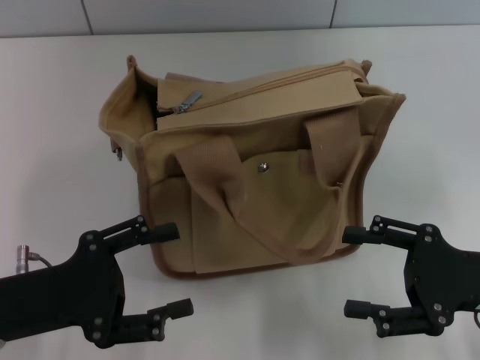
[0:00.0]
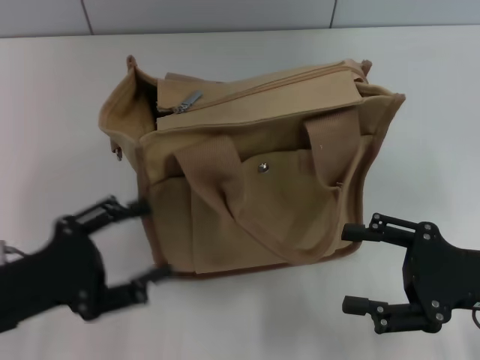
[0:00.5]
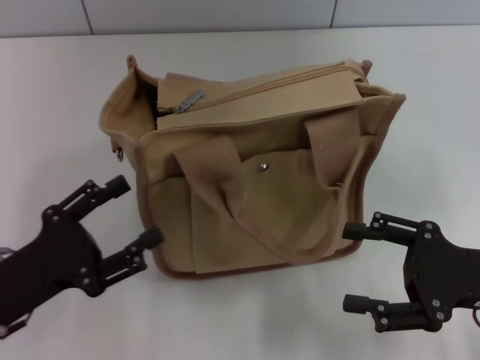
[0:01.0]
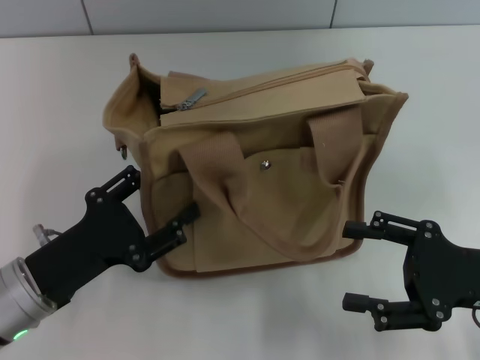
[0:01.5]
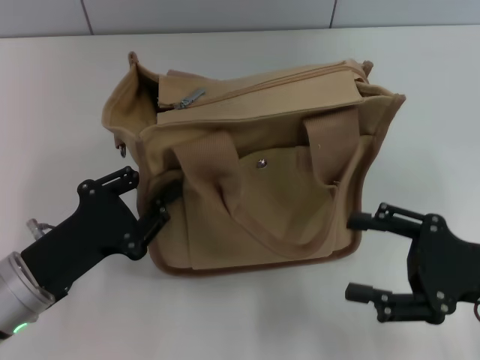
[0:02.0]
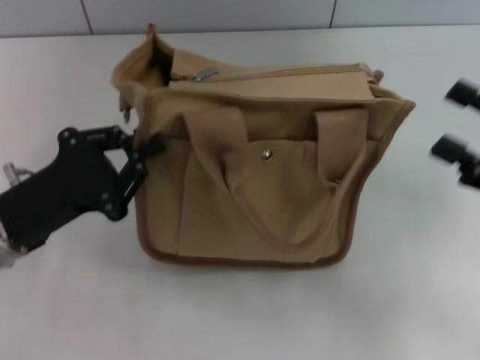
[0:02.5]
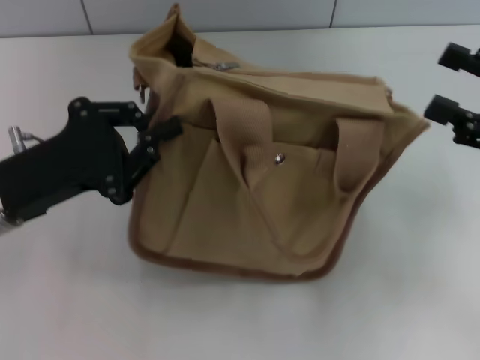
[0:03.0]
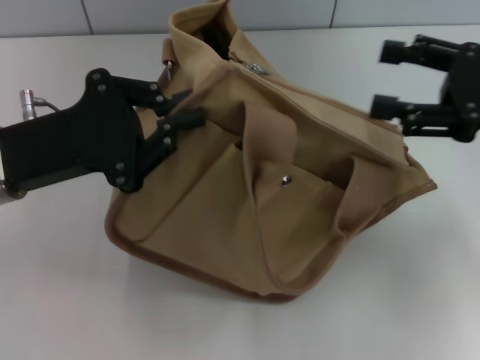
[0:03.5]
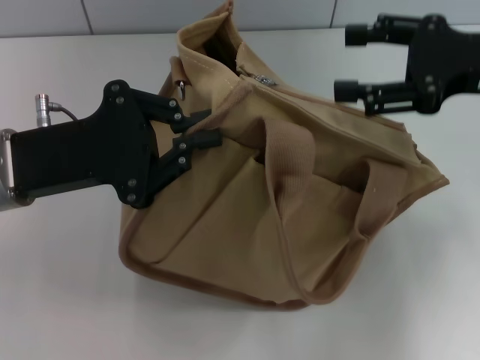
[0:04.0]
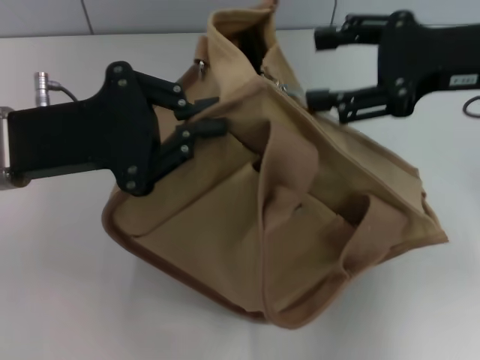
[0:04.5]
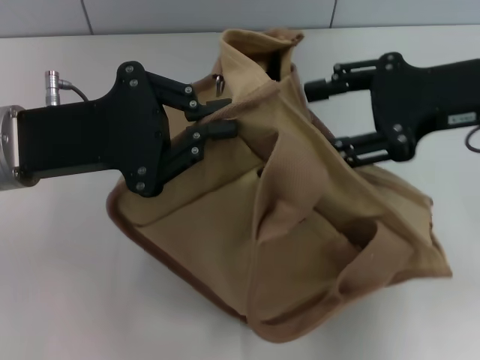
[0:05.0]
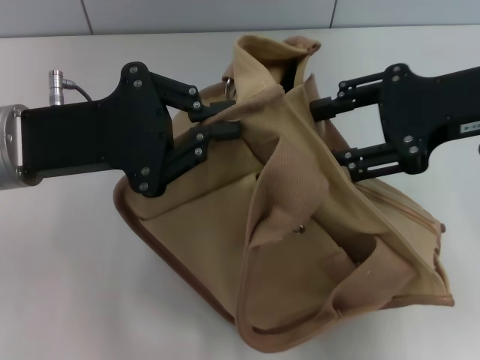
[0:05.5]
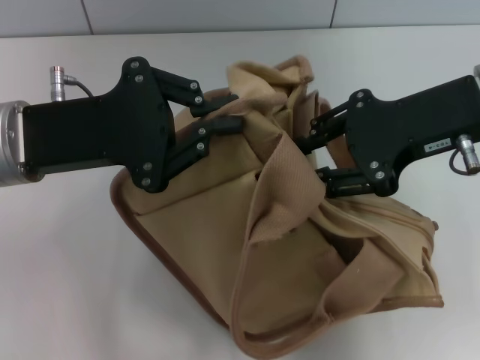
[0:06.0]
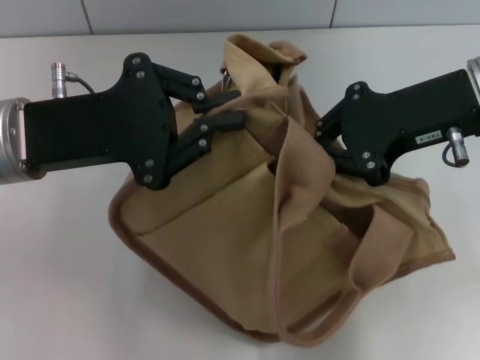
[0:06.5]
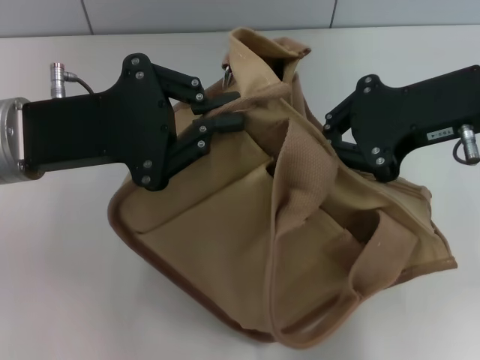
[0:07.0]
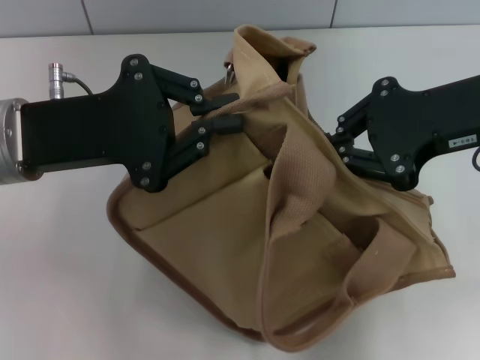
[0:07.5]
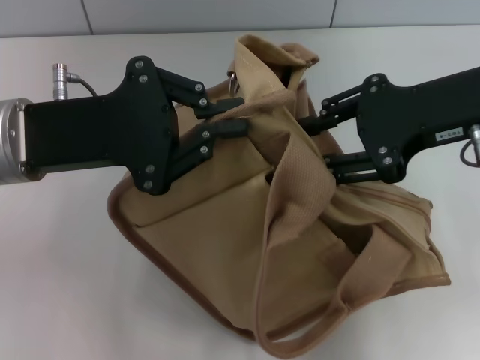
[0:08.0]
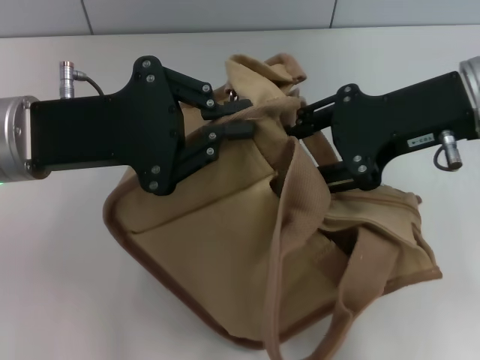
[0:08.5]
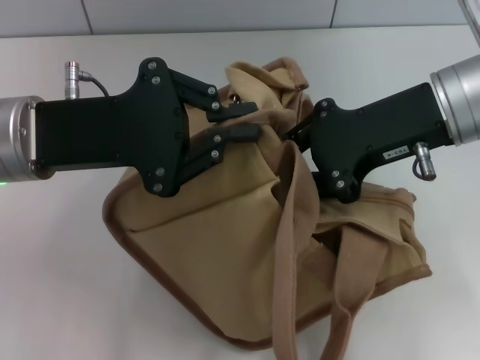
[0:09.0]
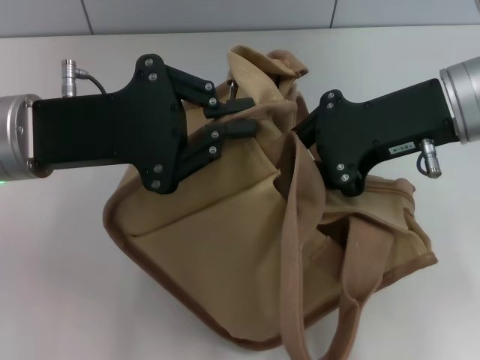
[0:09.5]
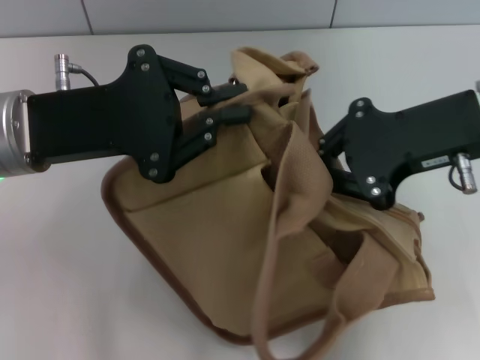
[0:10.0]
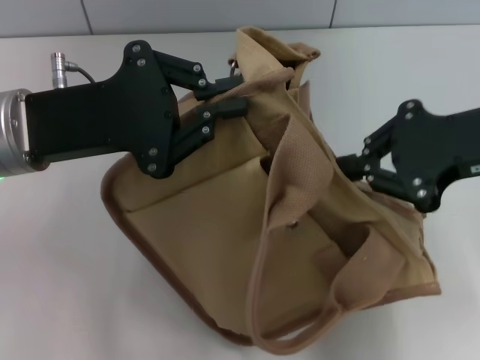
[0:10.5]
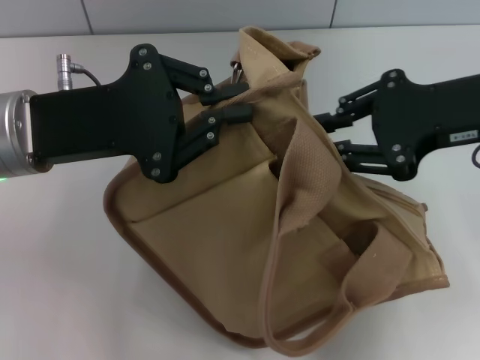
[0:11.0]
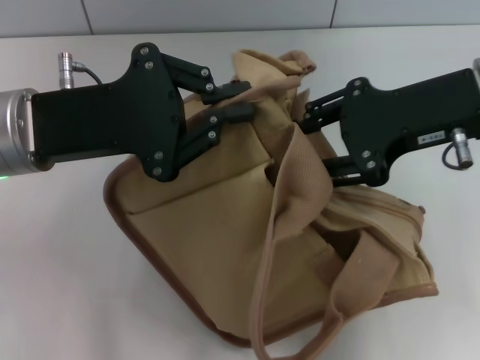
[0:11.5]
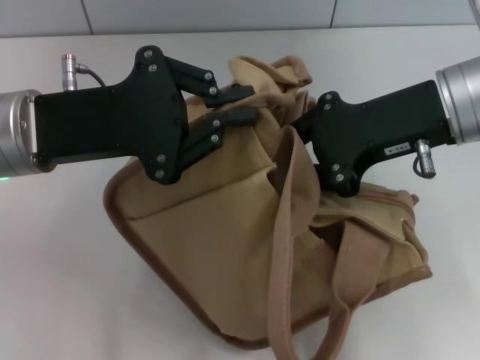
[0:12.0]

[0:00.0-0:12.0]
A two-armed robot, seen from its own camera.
0:00.0 to 0:02.0: The left gripper closes.
0:02.0 to 0:04.0: Both grippers travel together upward and forward, some 15 cm. The left gripper closes.
0:04.0 to 0:06.0: The right gripper is displaced to the left by approximately 5 cm.
0:06.0 to 0:08.0: The right gripper closes.
0:10.0 to 0:12.0: The right gripper opens up.

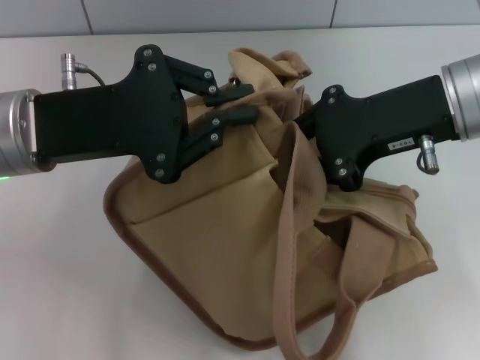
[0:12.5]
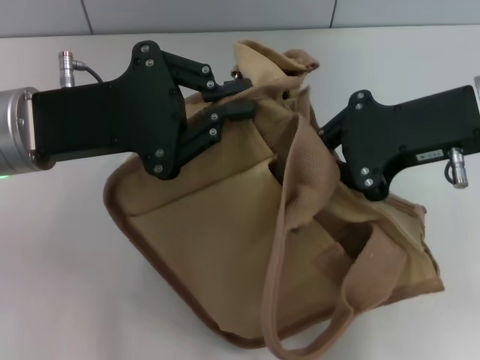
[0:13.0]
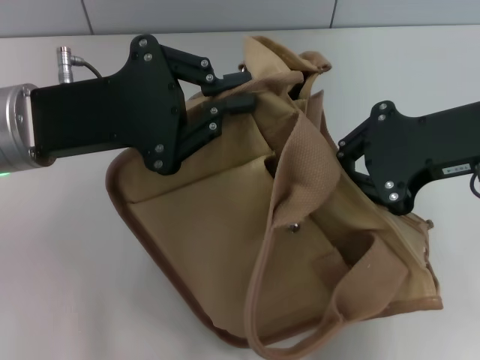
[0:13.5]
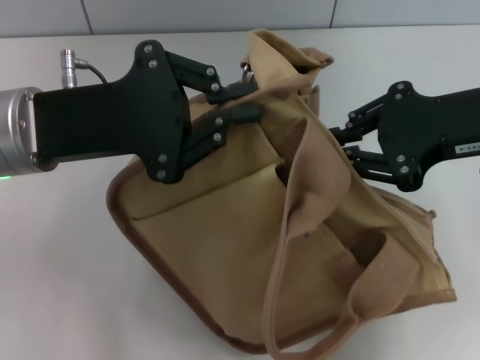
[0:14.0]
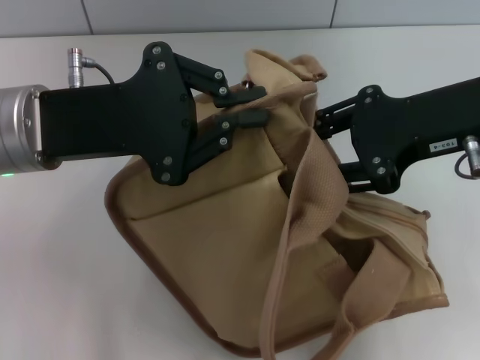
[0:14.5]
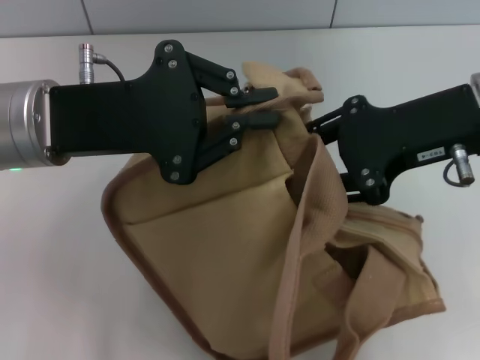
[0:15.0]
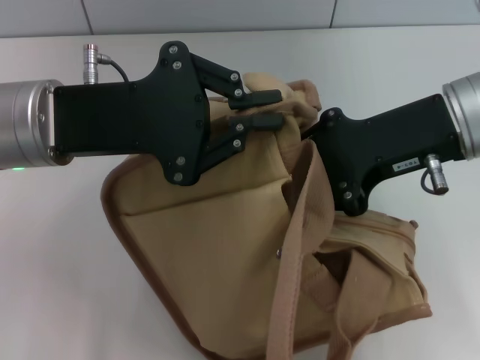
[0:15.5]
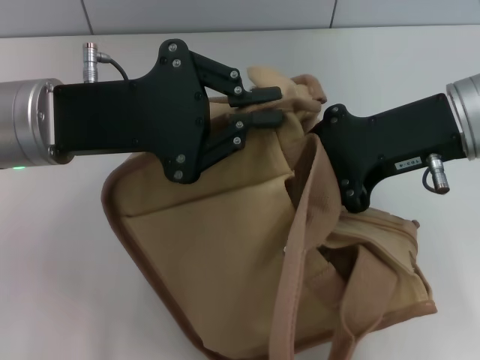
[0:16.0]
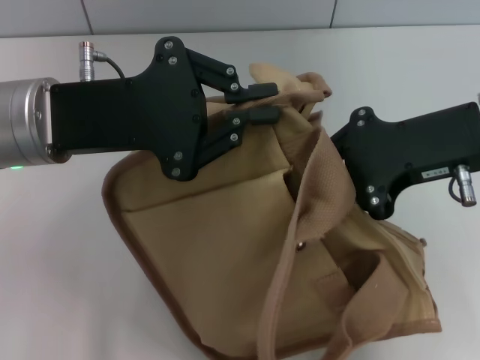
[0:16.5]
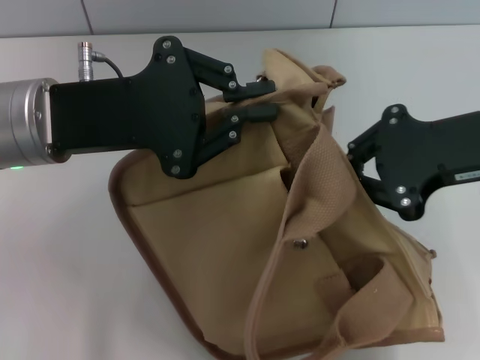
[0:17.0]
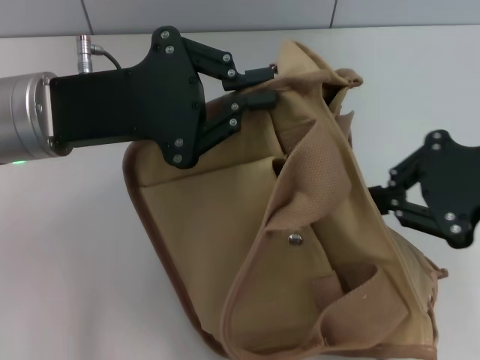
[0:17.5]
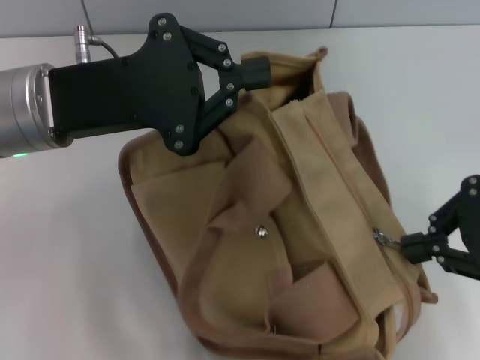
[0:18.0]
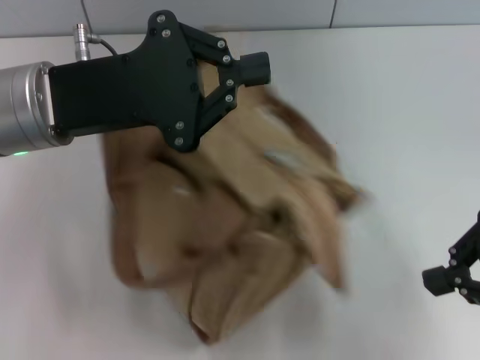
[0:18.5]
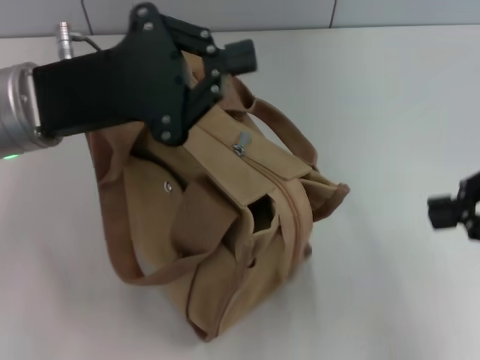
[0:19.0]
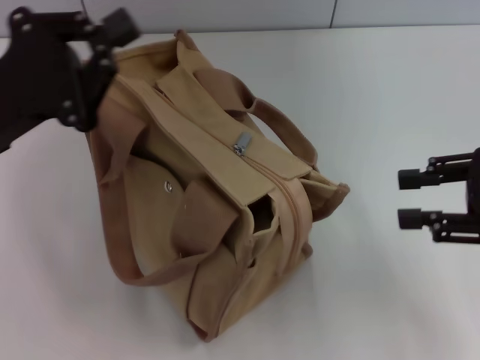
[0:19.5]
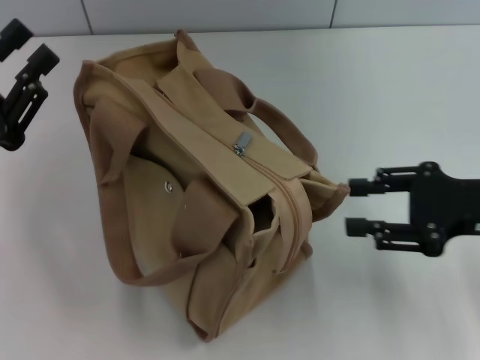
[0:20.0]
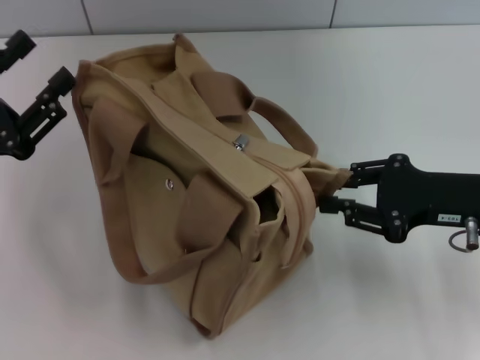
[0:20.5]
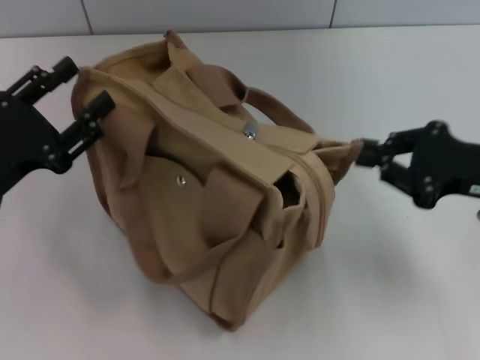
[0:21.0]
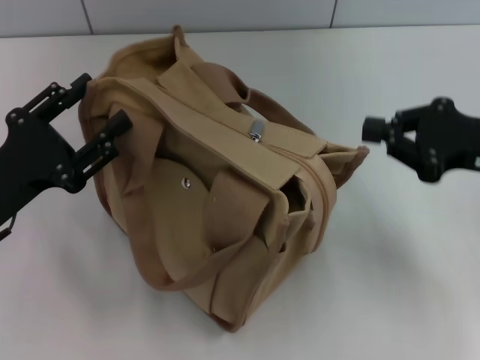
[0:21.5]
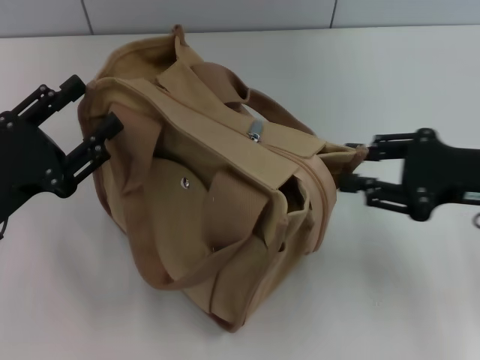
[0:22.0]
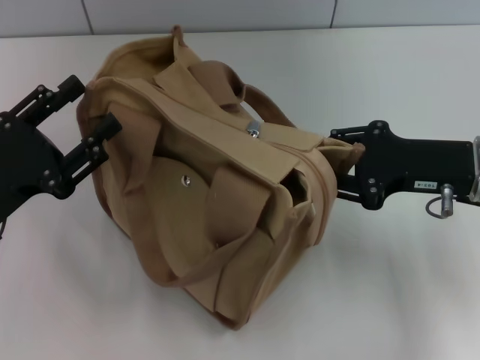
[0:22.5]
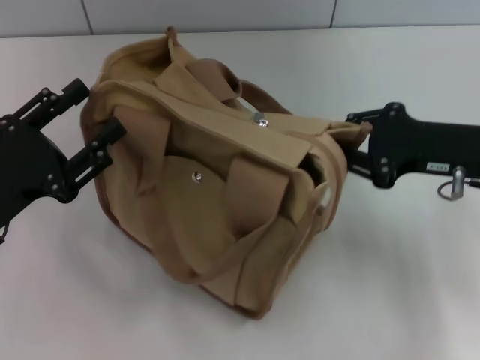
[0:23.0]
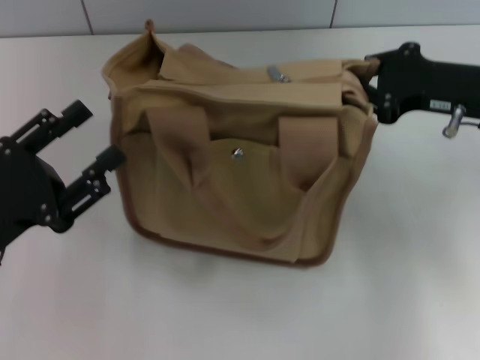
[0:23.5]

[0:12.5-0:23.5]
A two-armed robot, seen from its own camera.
Step, 0:18.0 to 0:18.5: Pull open the zipper with your right hand.
0:16.0 to 0:18.0: The right gripper travels to the right and backward by approximately 10 cm.
0:18.0 to 0:20.0: The right gripper heads downward, covering approximately 10 cm, and opens, while the left gripper goes about 15 cm to the left, backward and downward.
0:20.0 to 0:21.5: The right gripper closes its fingers. Meanwhile the left gripper opens up.
0:21.5 to 0:23.5: The right gripper heads forward, covering about 5 cm, and opens, then closes once more.

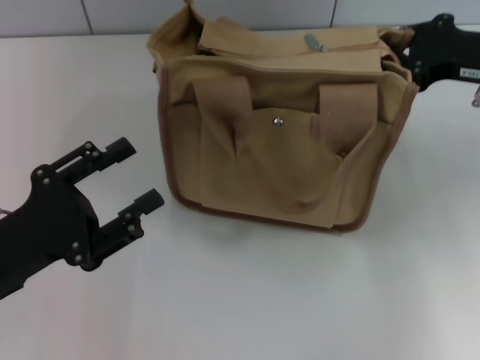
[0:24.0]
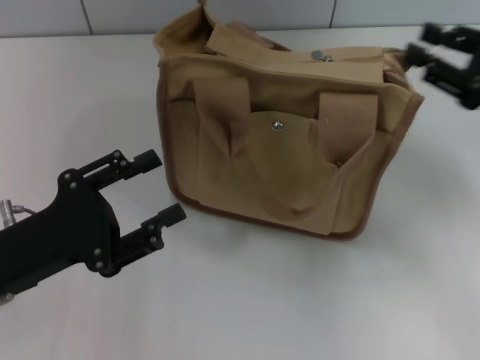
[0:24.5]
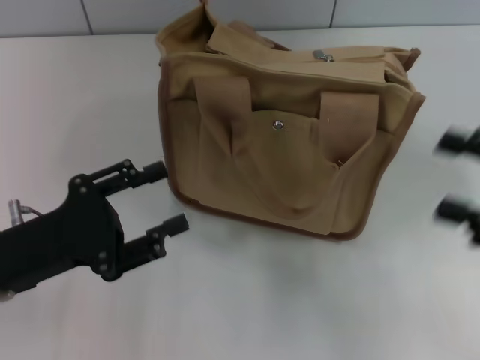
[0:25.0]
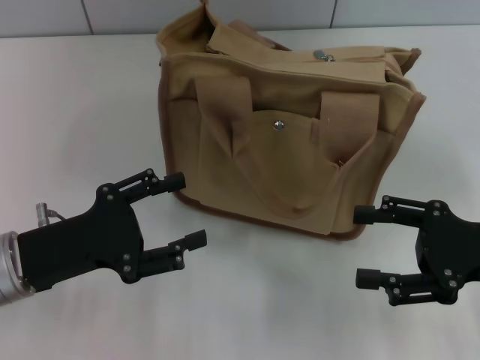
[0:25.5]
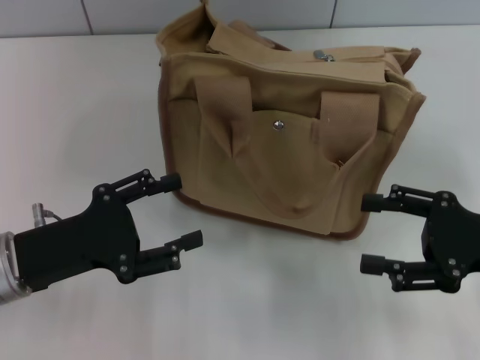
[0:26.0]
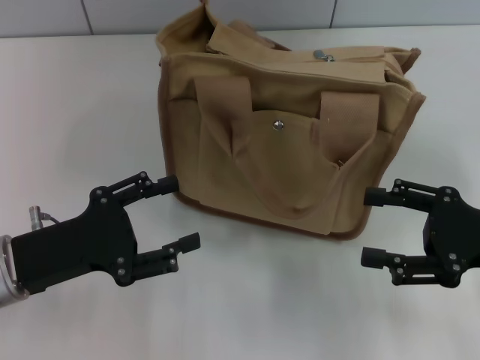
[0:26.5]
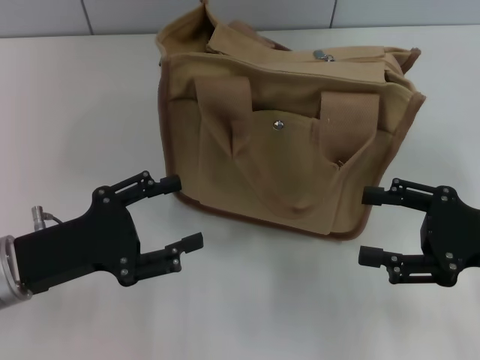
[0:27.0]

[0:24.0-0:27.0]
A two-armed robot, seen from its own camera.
0:24.0 to 0:25.5: The right gripper is displaced backward and downward by approximately 15 cm, and opens up.
0:25.5 to 0:27.0: The grippers move only a little.
